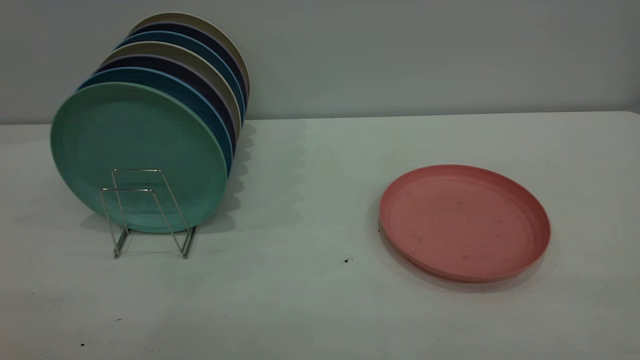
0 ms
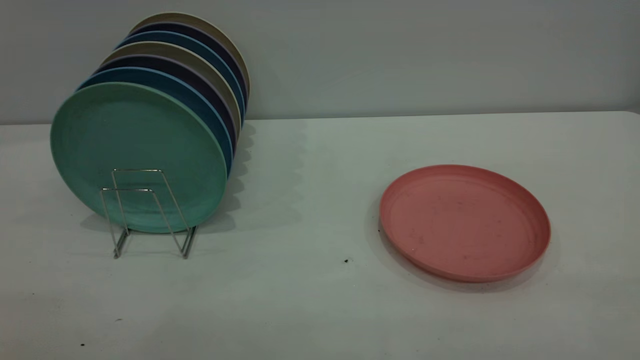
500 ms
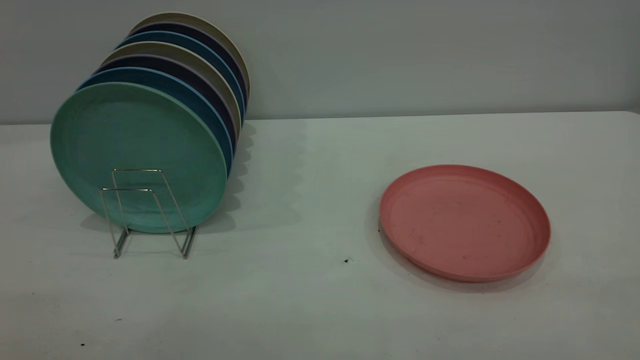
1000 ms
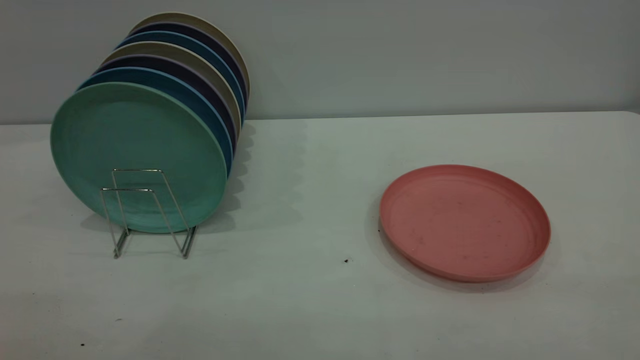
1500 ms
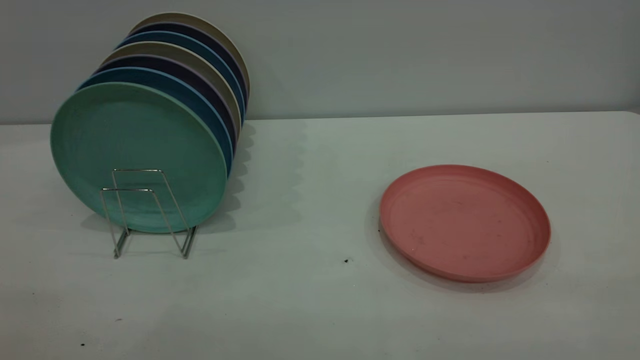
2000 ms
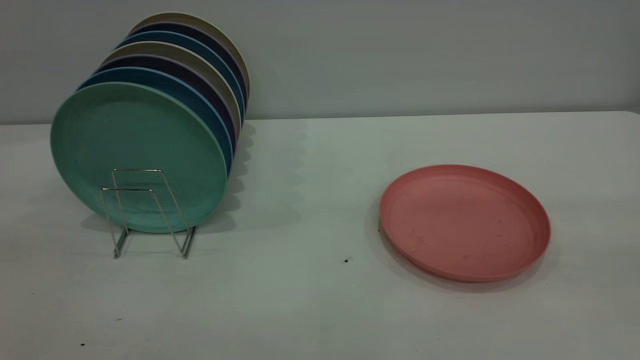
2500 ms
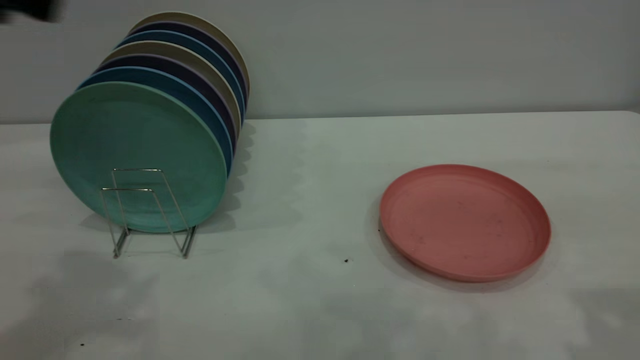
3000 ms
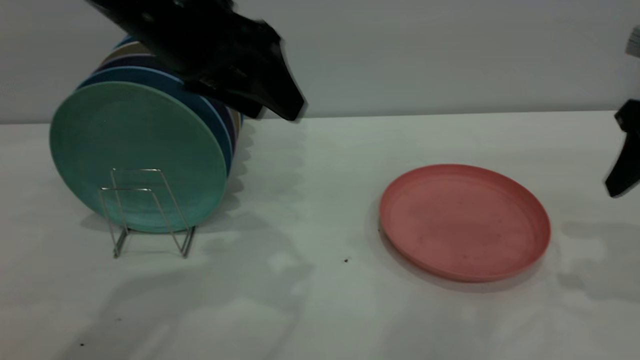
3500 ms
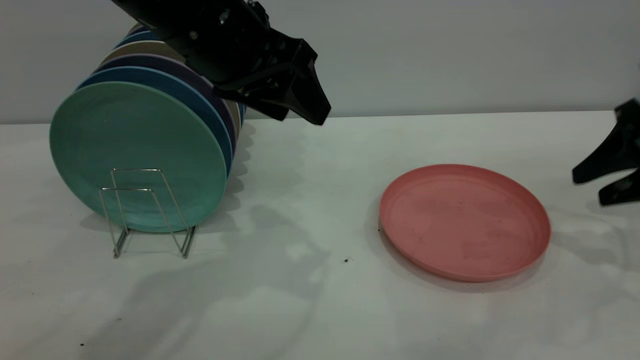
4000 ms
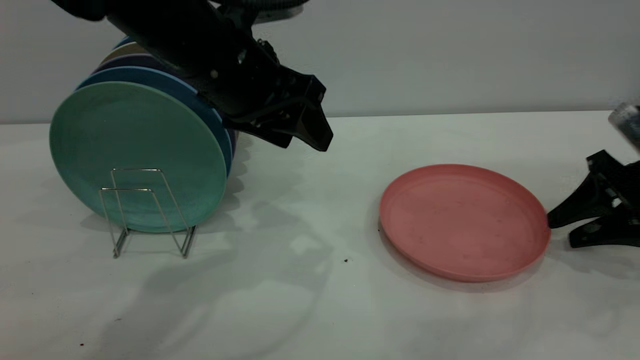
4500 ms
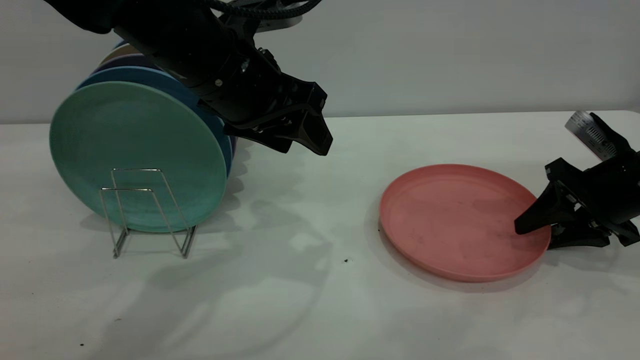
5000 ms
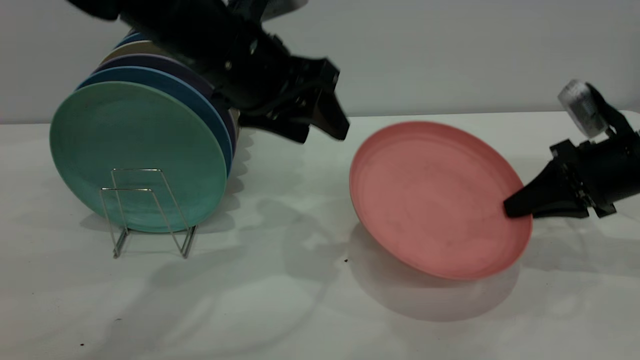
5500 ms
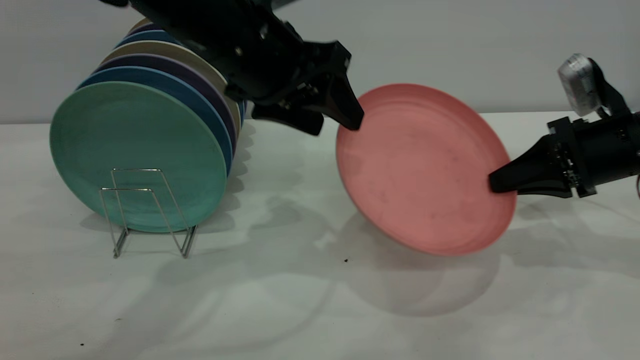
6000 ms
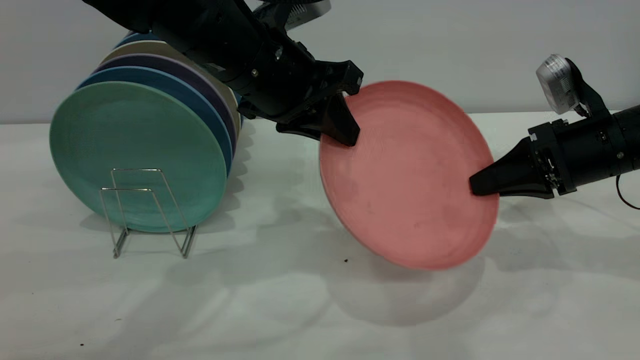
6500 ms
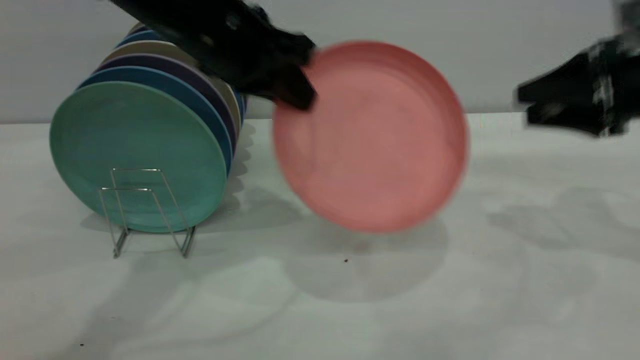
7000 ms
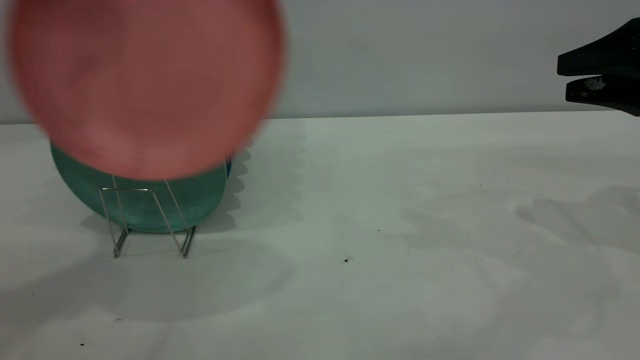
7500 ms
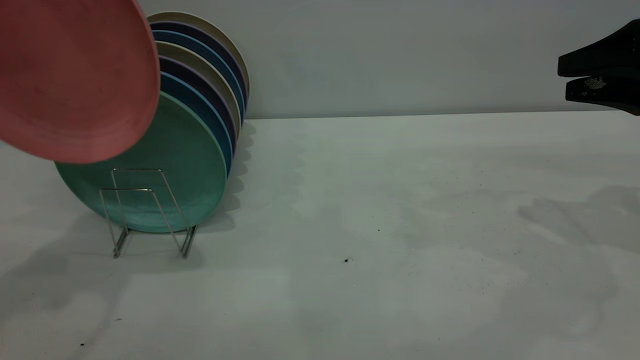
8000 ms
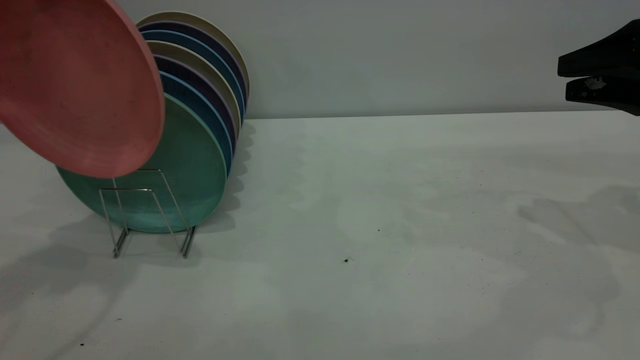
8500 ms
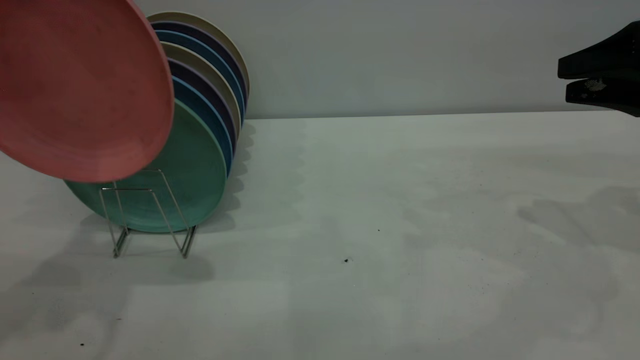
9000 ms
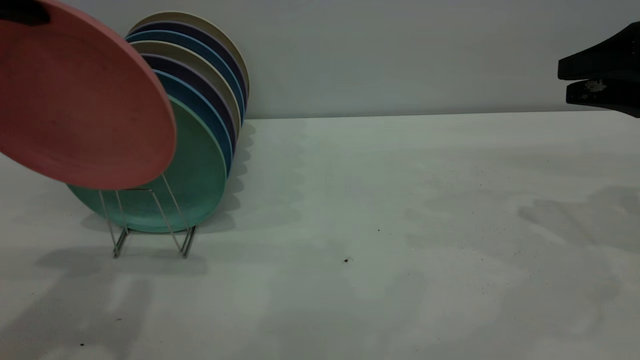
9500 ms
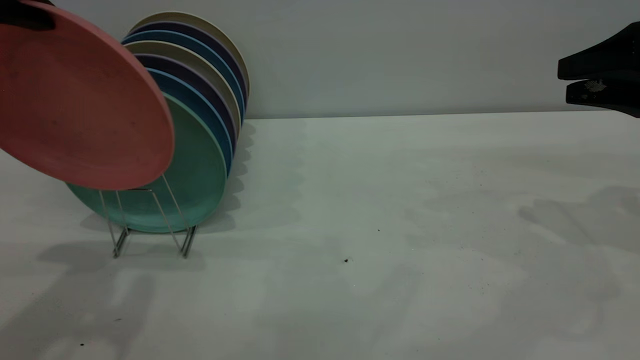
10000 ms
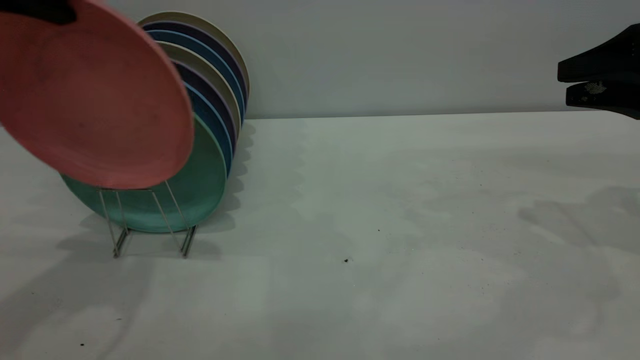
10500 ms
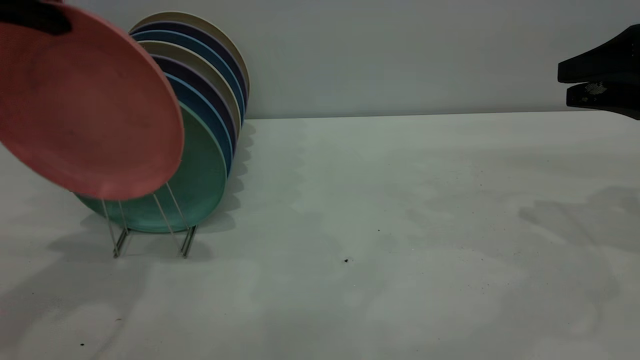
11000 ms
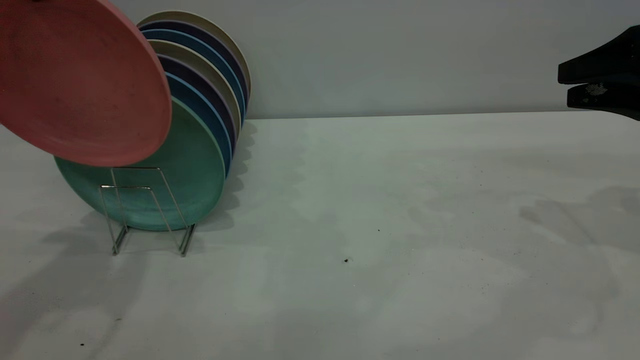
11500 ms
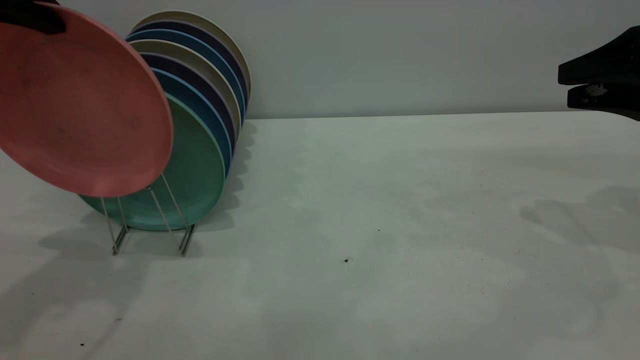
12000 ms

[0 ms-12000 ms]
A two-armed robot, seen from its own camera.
Task of the whole recording: the right gripper grasp the pink plate, the right gripper pass the pink plate to the left gripper, and the left gripper place the pink plate on the plate rack.
Step, 0 ms to 5500 ms: Pick up the plate with the right gripper.
Step, 6000 ms to 8500 ms: Pass the plate from the right gripper to the left gripper.
0 ms to 2000 ms: Both grippers stay put.
2000 ms to 4000 ms: The right gripper shifts some 40 cm forward and downward, and opens its fingers. Meanwhile the left gripper goes some 40 cm forward and to the right.
4000 ms to 6000 ms: The right gripper is displaced to the left by about 5 cm, and closes its fingers.
6000 ms to 8000 ms: The left gripper travels to the left and upward by some 25 cm, and closes its fingers, while the right gripper travels upward and to the right by roughly 10 cm, and opens.
8000 ms to 10000 ms: The left gripper is displaced downward and backward by some 10 cm.
10000 ms to 12000 ms: The grippers move only a little.

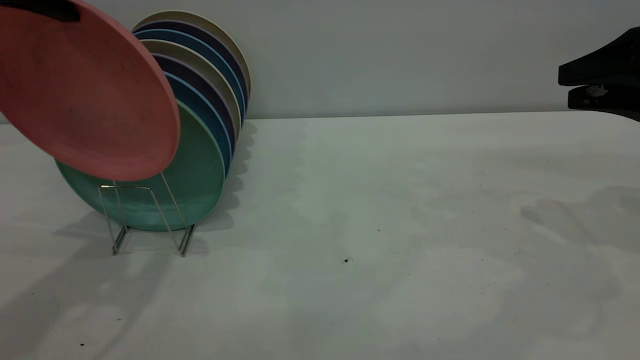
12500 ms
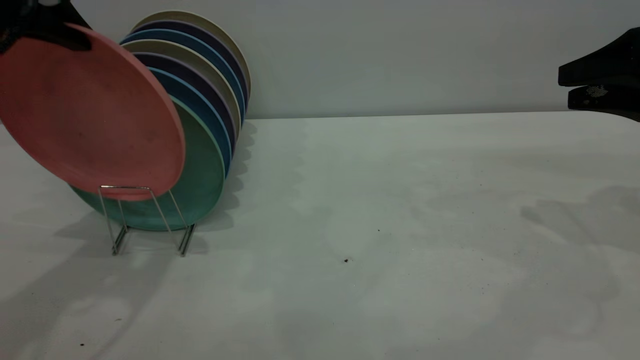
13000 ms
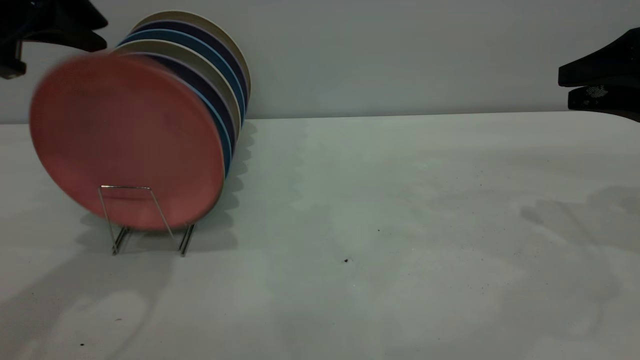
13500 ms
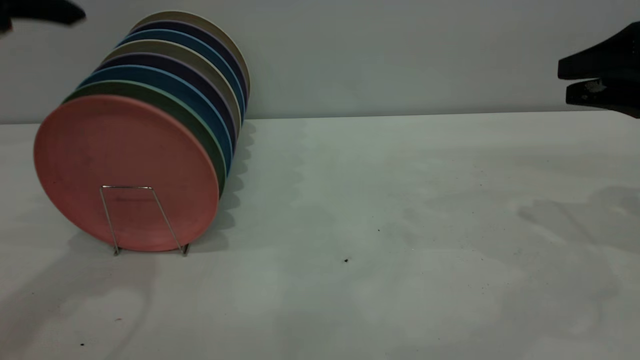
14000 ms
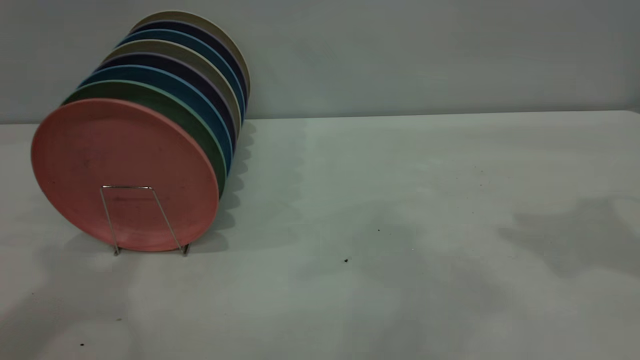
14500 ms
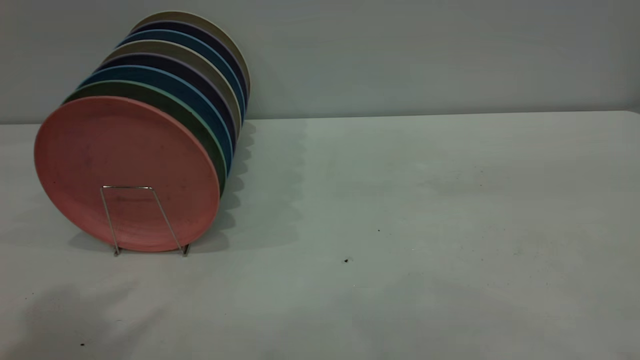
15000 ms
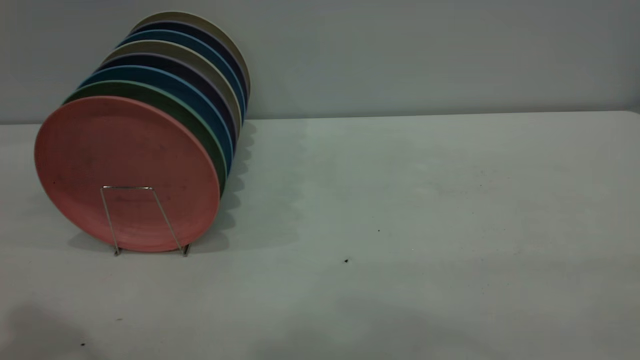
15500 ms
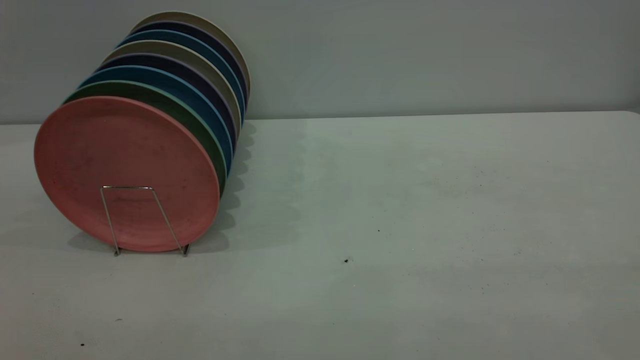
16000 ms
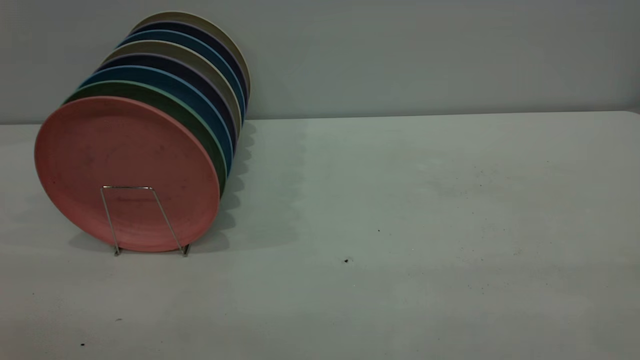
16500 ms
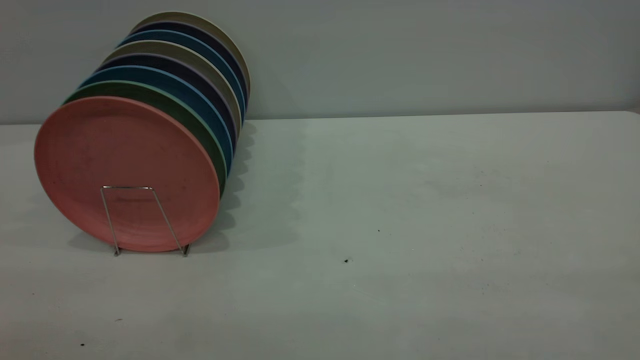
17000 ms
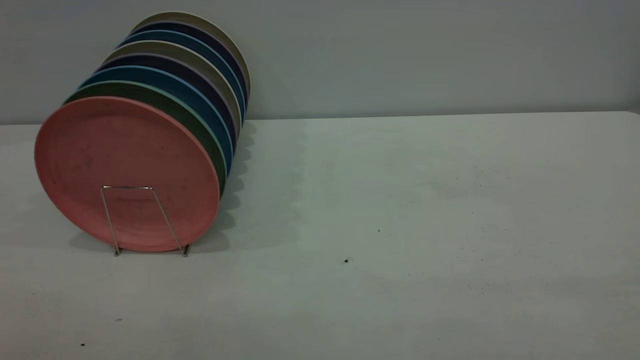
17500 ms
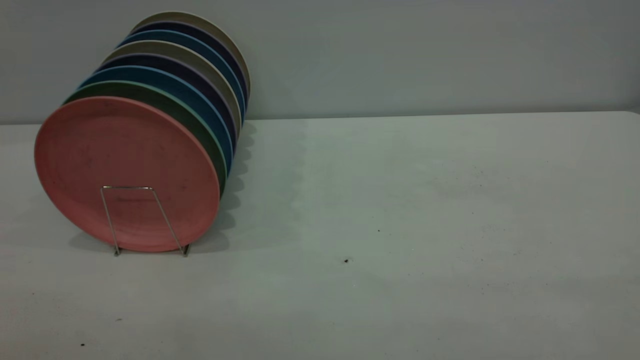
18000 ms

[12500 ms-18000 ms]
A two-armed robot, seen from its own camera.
Task of the whole recording: the right gripper grasp the pink plate, the right gripper pass the pink plate to the left gripper, and the left gripper place the pink plate on the plate rack.
12500 ms to 14500 ms: The left gripper heads upward and backward, covering roughly 10 cm, and opens its fingers; the right gripper is displaced upward by some 15 cm.
